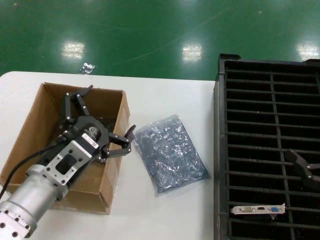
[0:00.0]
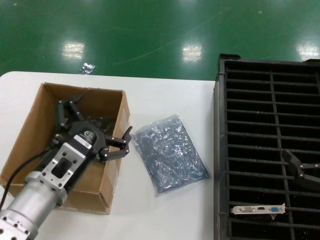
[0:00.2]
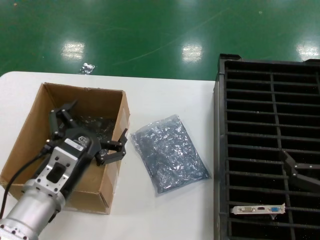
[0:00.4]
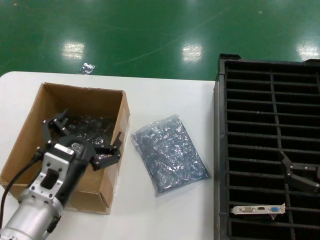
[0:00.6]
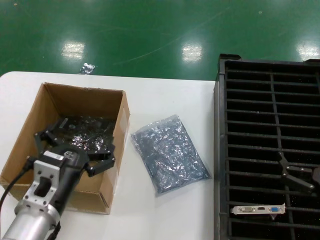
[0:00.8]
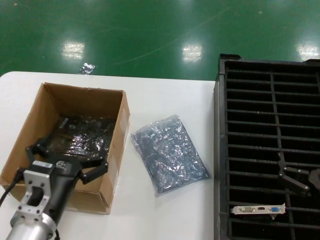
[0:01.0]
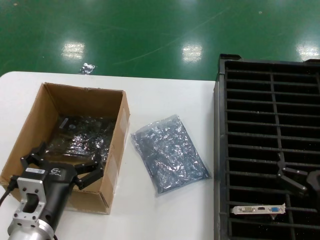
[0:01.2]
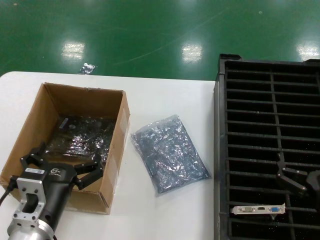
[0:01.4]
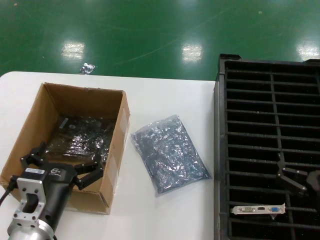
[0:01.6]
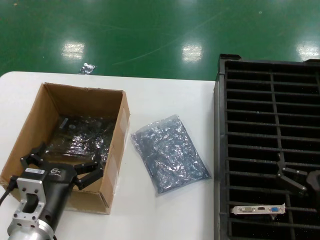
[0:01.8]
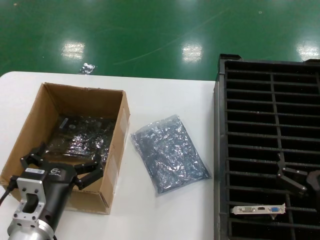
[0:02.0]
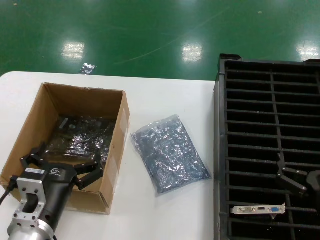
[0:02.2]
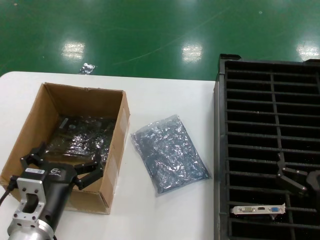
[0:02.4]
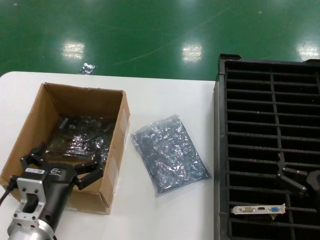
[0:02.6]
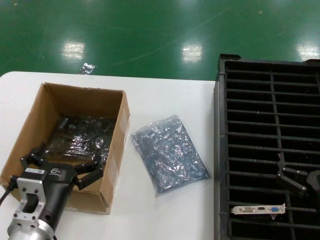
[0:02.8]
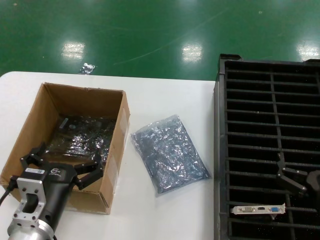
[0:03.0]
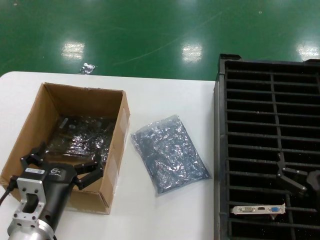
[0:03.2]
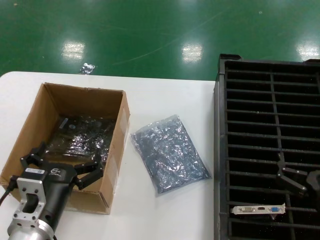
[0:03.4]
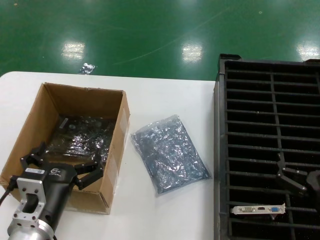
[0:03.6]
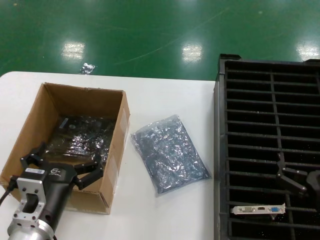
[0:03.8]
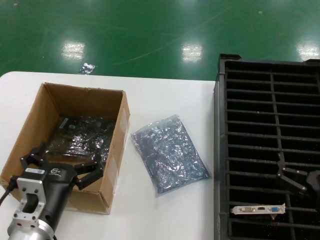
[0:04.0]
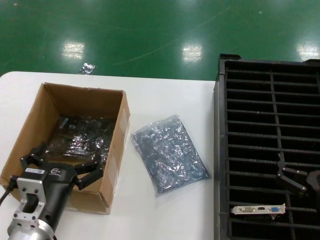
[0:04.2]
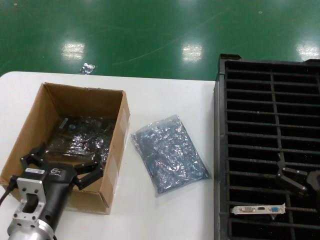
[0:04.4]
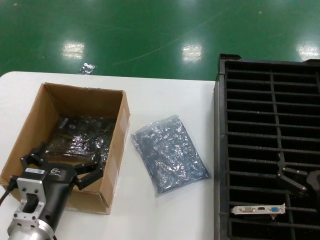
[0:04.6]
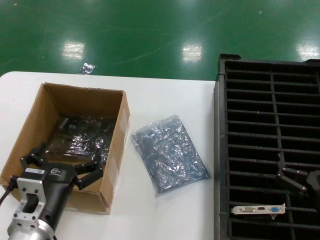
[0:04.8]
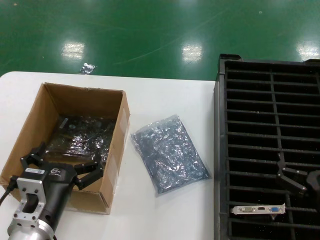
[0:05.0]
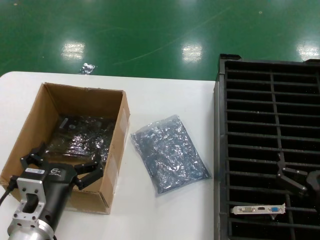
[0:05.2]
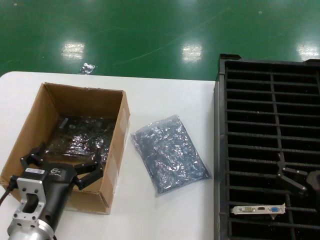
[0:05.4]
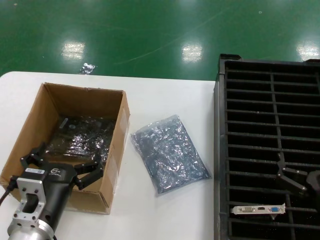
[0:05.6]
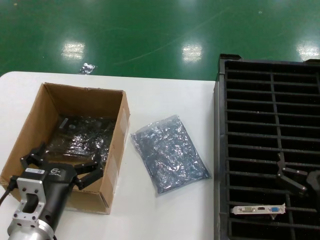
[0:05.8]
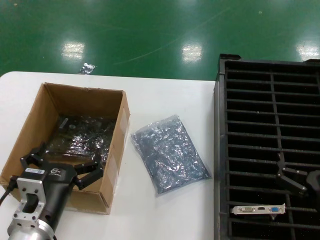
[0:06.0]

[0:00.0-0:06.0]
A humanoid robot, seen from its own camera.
Task of the whole recording: take out graphics card from box remove packaging put into black container.
0:00.0 to 0:01.6: The right hand moves to the left and downward, some 15 cm. Meanwhile the left hand travels downward by approximately 5 cm.
0:01.6 to 0:06.0: Both hands stay about where they are.
